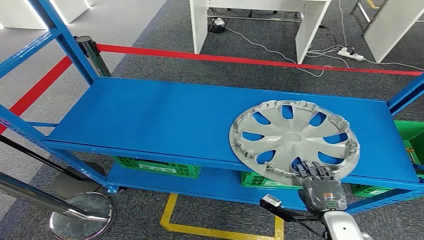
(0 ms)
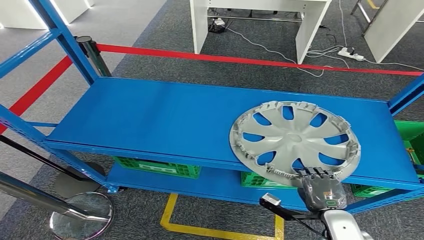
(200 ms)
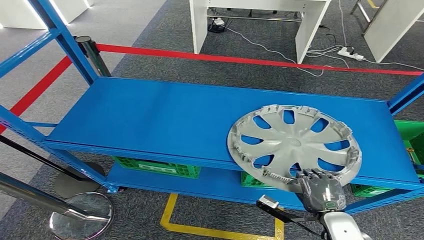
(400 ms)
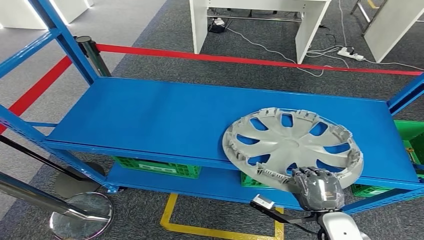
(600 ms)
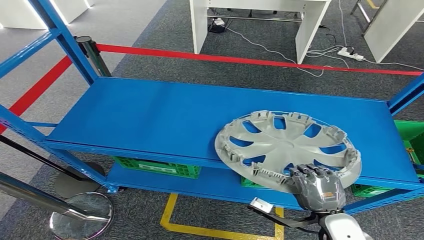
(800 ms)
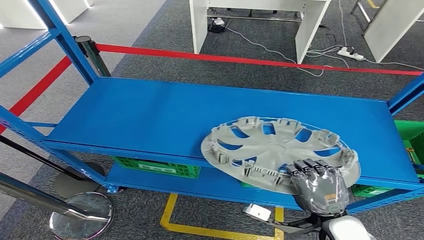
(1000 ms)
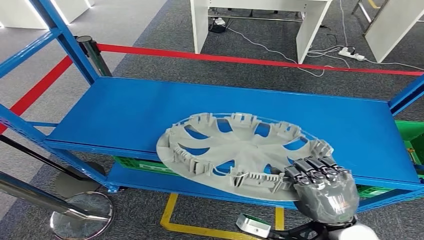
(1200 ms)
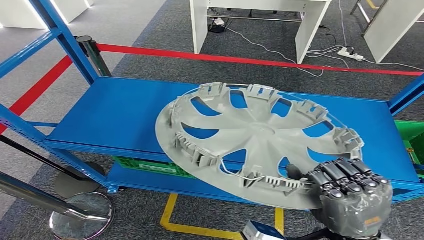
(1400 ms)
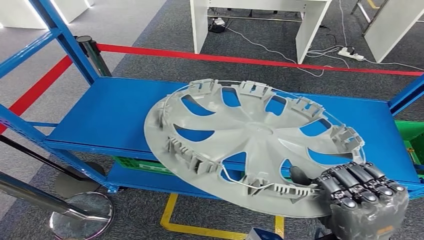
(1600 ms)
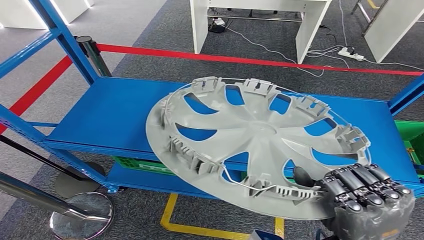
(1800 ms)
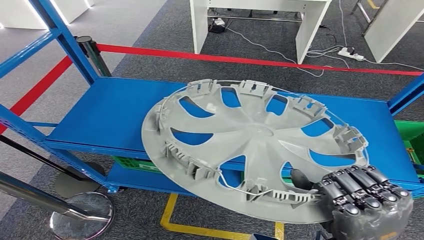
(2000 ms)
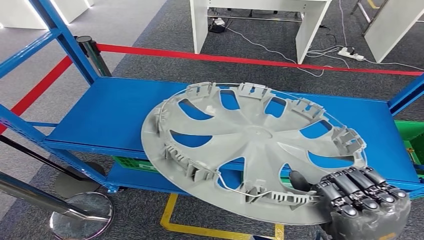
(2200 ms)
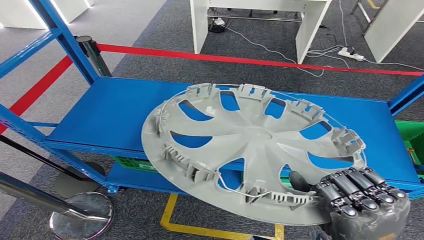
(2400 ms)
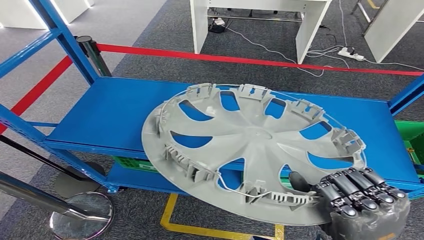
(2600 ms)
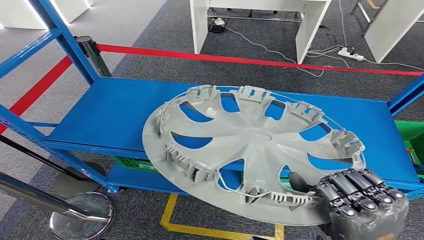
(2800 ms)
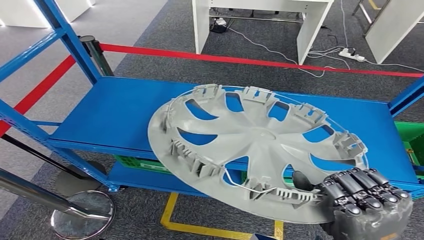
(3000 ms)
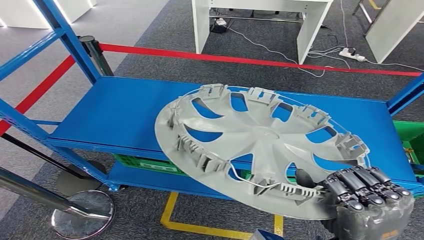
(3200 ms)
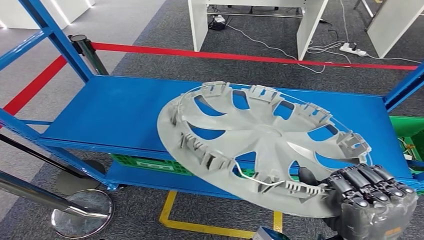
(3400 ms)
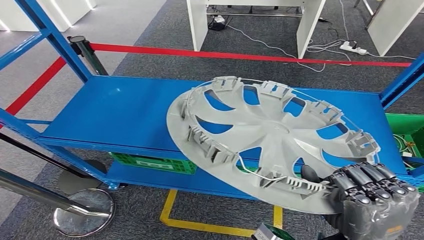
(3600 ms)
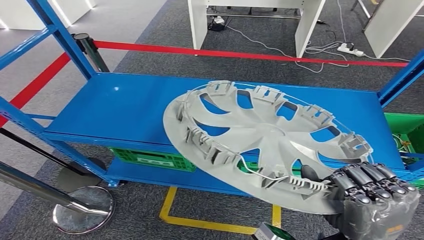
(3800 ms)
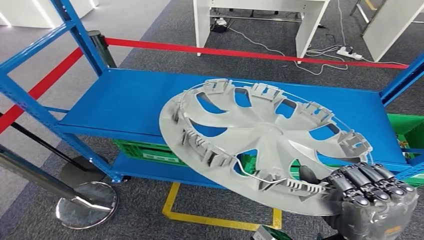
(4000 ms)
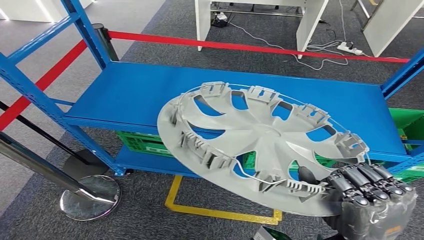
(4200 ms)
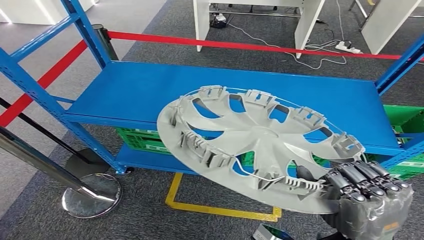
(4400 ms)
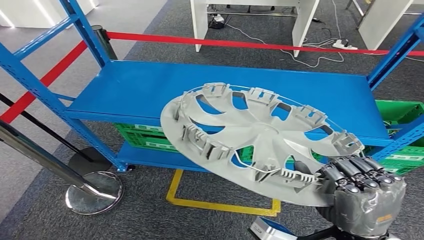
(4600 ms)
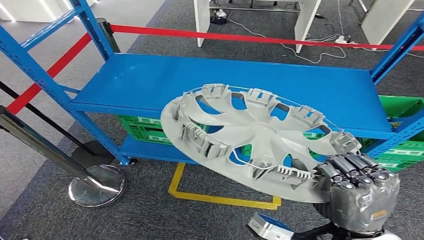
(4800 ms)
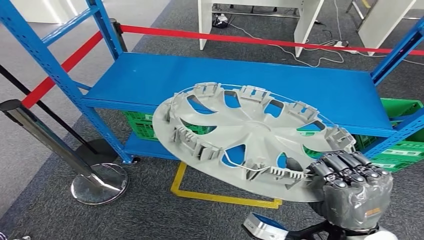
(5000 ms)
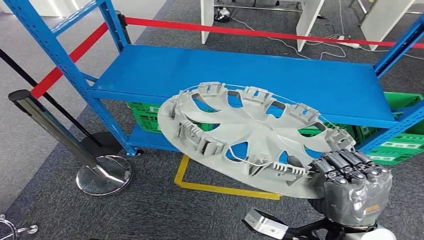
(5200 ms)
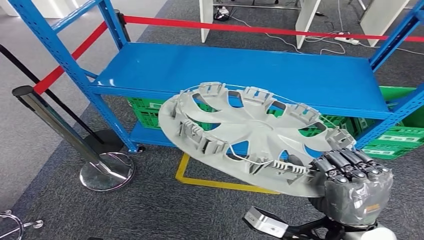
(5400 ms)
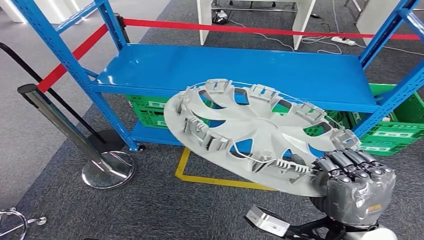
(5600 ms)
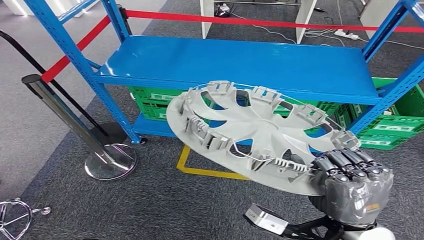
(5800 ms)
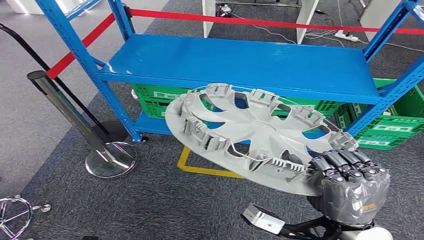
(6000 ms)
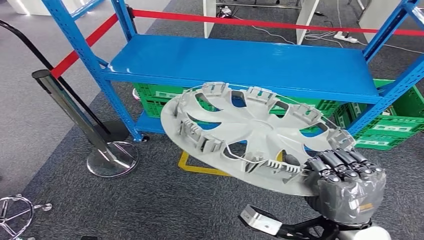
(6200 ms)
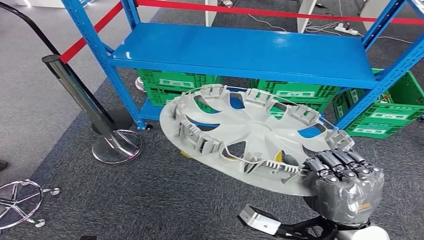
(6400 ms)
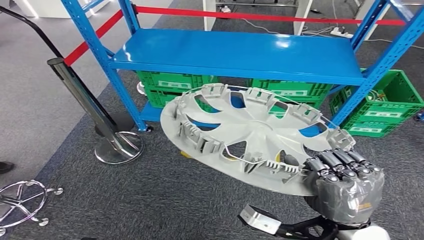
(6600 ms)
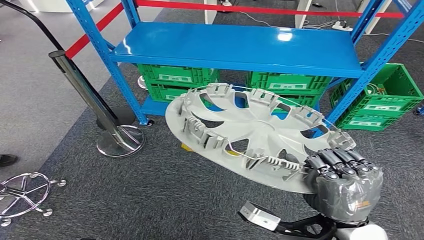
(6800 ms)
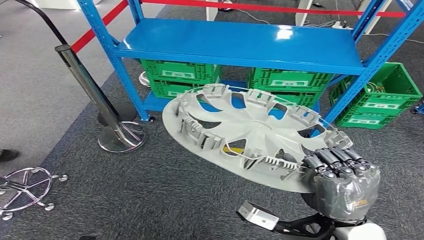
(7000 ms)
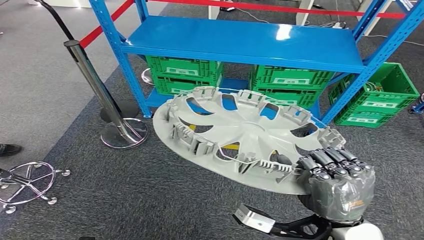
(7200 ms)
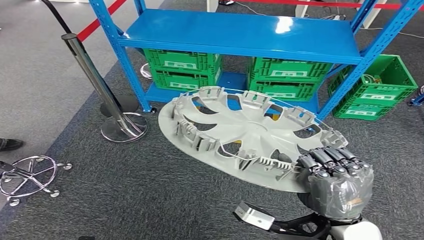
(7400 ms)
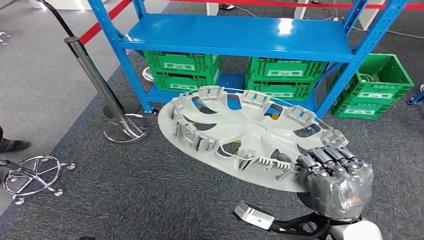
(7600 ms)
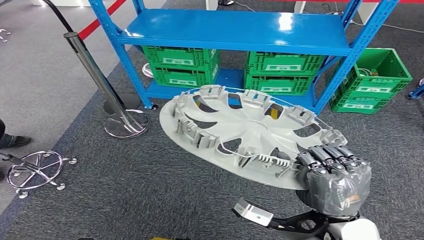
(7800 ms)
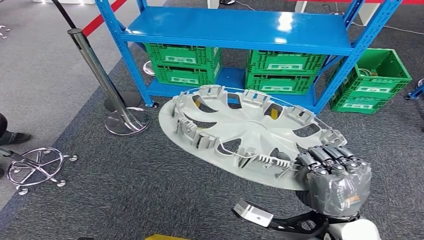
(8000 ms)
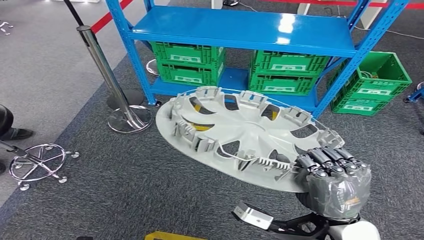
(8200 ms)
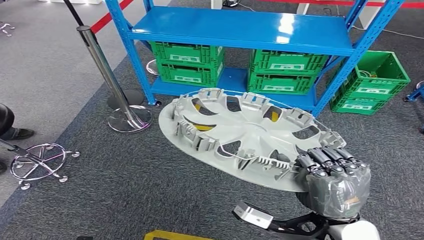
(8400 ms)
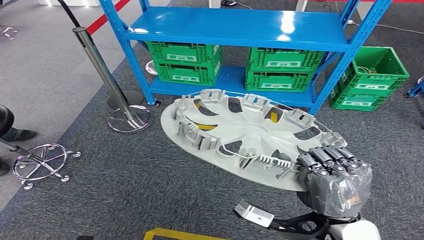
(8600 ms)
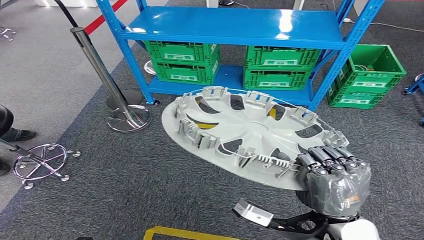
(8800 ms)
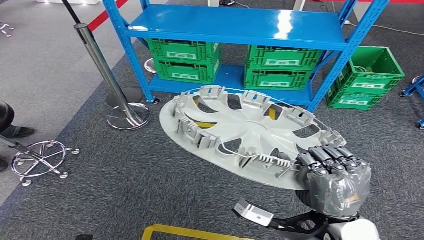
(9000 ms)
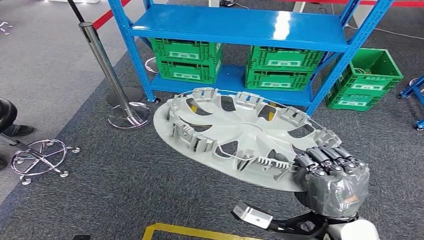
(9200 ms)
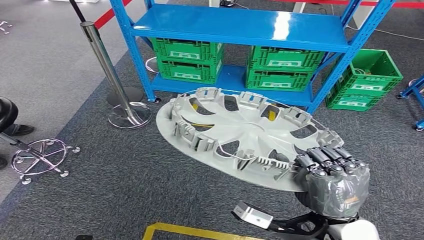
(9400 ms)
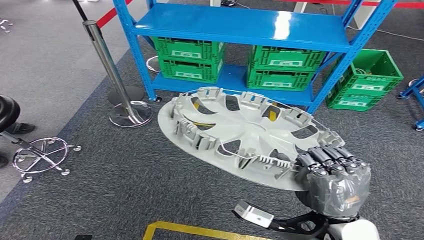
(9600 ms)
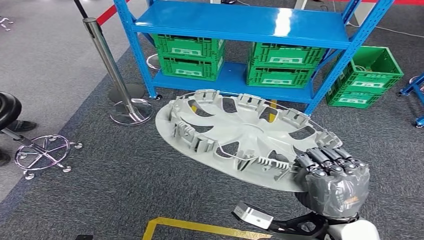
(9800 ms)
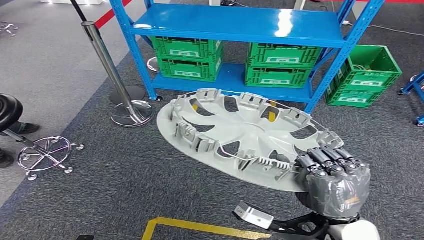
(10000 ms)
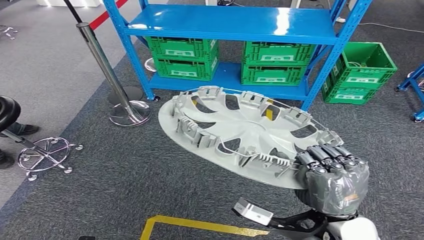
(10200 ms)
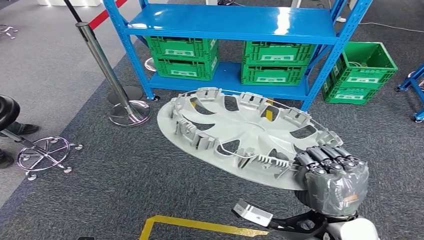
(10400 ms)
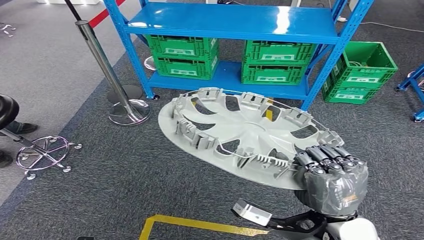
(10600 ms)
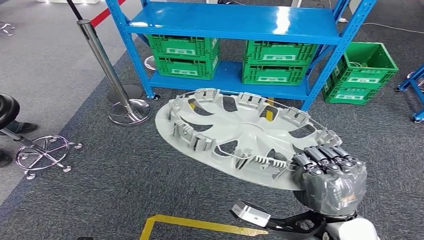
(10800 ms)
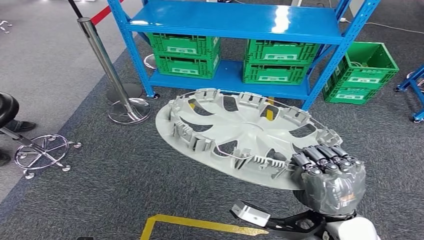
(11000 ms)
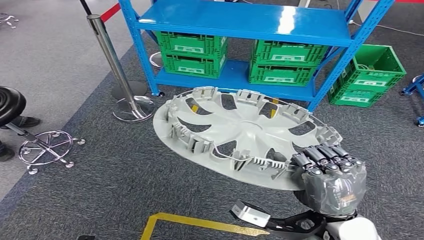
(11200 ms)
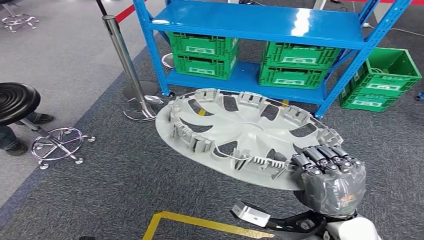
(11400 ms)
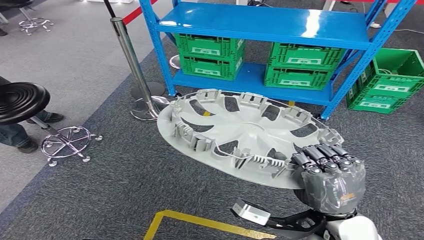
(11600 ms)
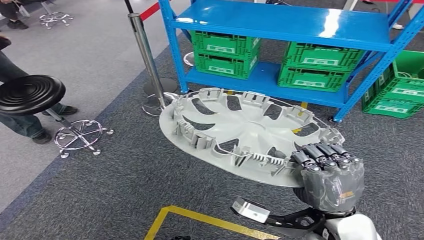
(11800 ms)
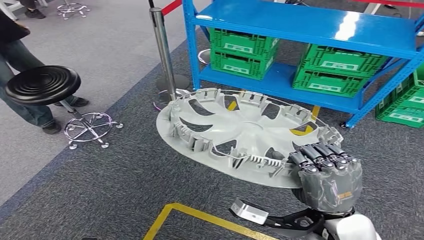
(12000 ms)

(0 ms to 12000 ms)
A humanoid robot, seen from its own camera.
Step, 0 ms - 5200 ms: Pick up the small parts from the shelf.
1600 ms - 3000 ms: The two hands keep their place.

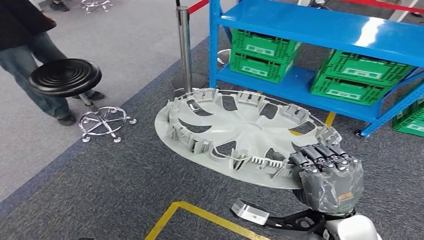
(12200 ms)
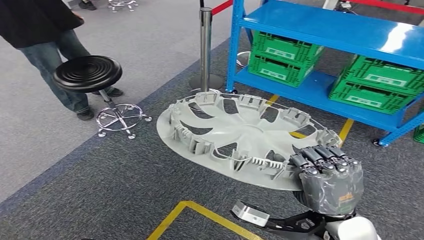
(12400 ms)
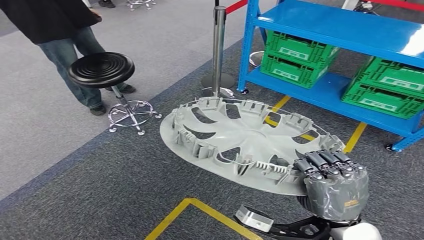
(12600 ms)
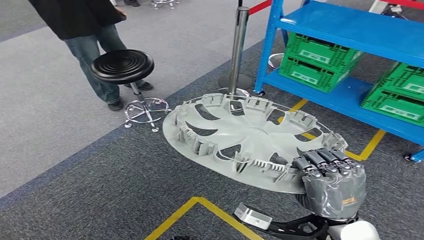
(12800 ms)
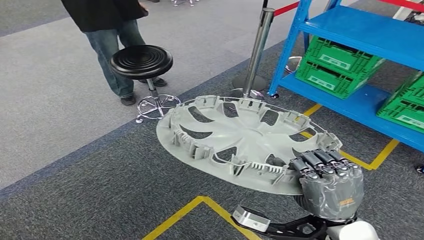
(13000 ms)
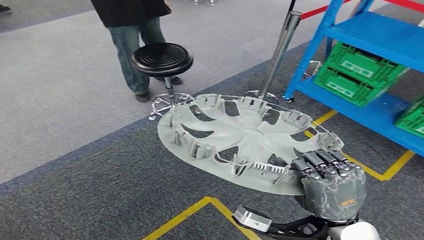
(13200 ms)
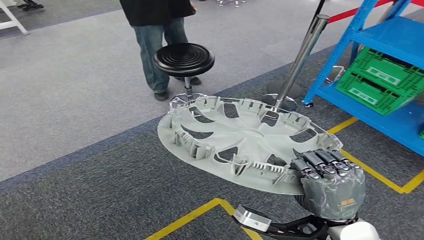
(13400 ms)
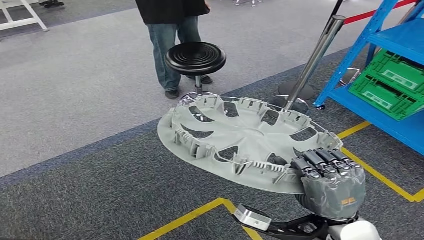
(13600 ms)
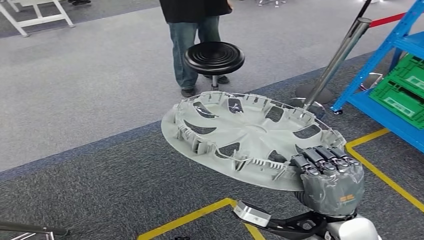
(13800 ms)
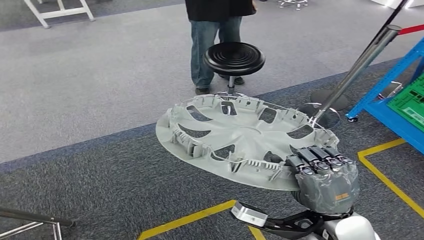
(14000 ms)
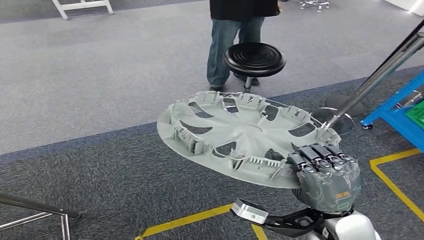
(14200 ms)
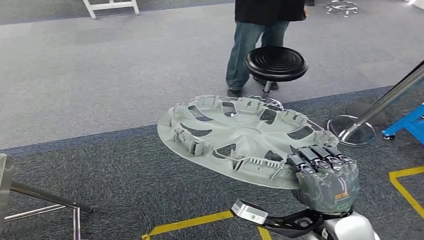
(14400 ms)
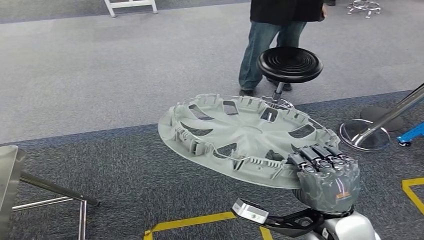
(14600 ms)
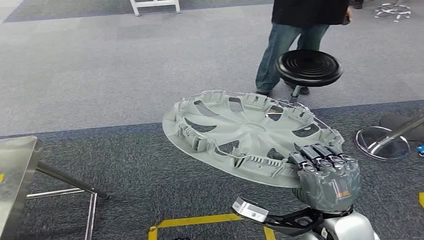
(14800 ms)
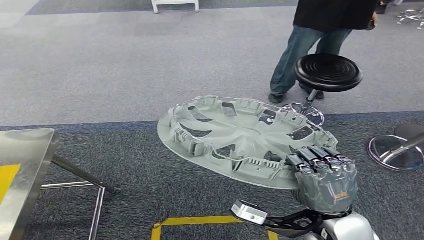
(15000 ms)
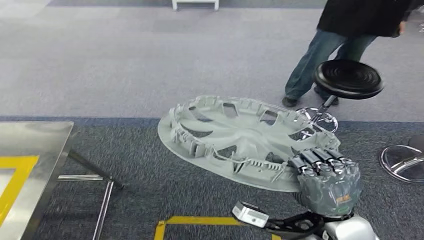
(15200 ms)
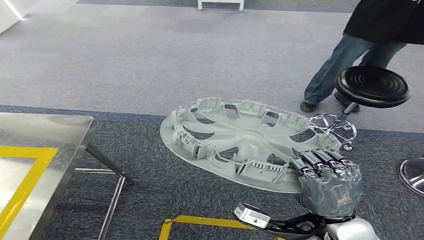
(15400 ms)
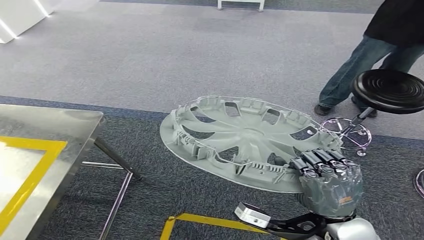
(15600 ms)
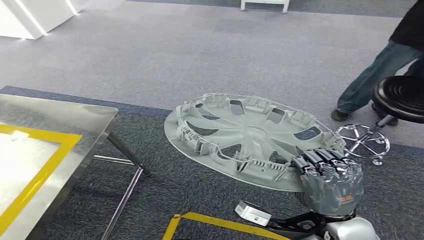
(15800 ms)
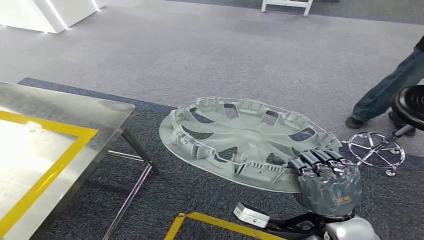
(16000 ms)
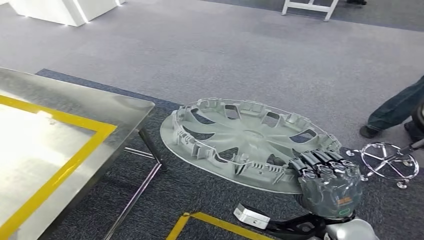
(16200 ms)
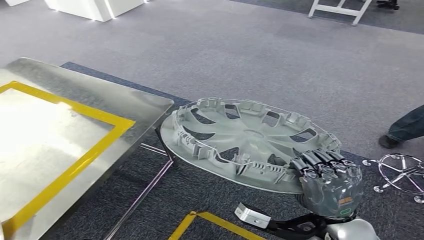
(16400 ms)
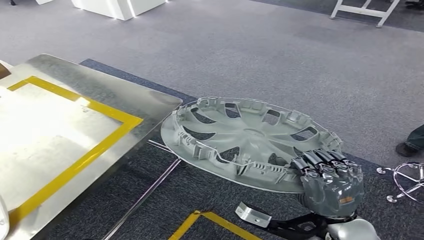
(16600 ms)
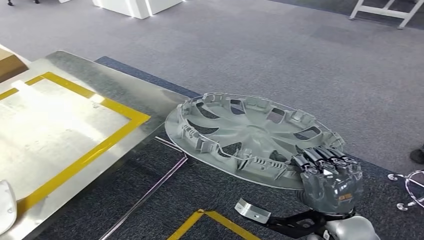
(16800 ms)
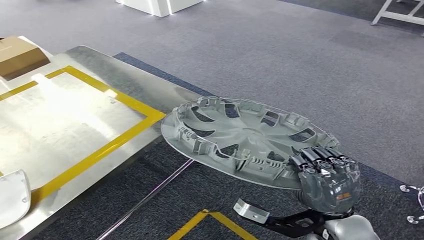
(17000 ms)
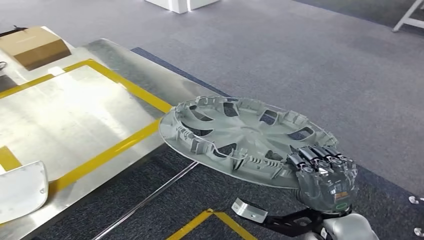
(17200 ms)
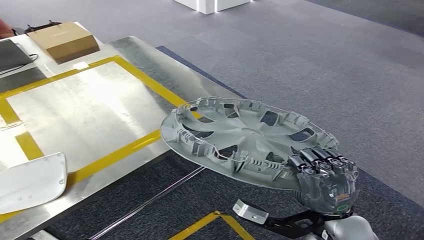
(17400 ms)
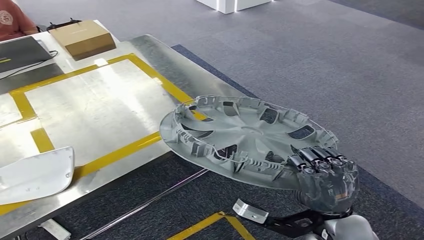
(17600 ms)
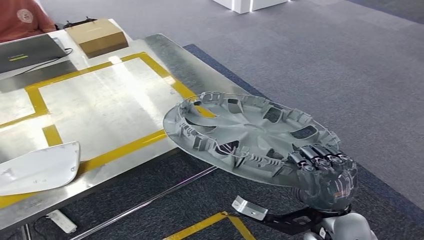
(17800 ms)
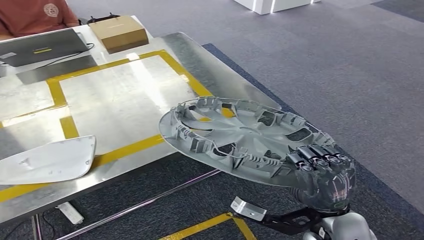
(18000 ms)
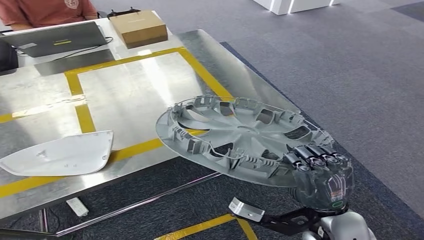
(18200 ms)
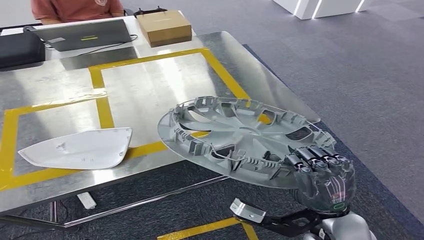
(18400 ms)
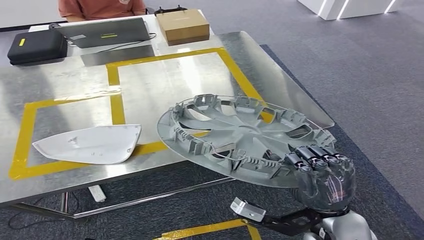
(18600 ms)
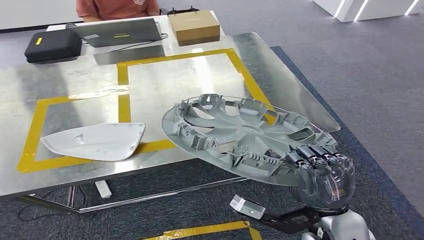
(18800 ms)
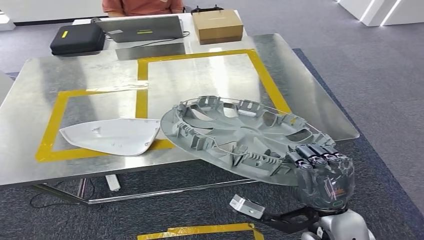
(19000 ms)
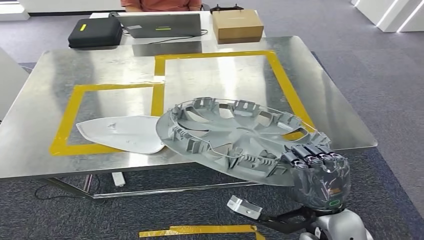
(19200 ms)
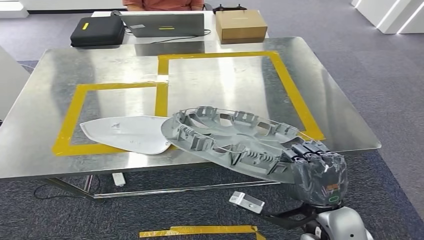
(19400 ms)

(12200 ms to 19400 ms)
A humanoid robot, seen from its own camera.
Step, 12200 ms - 18200 ms: Move the small parts to the workbench.
